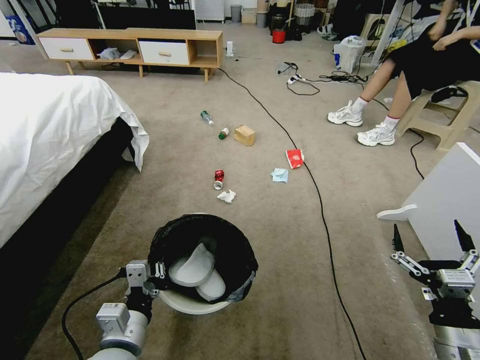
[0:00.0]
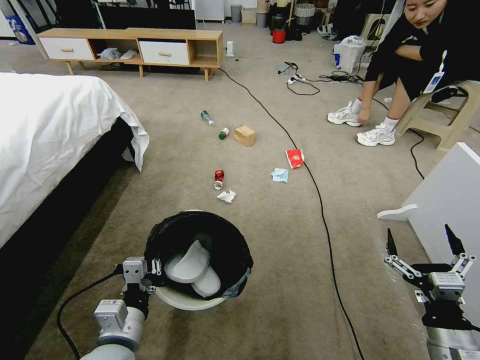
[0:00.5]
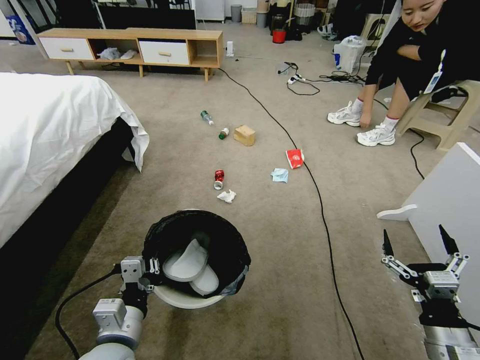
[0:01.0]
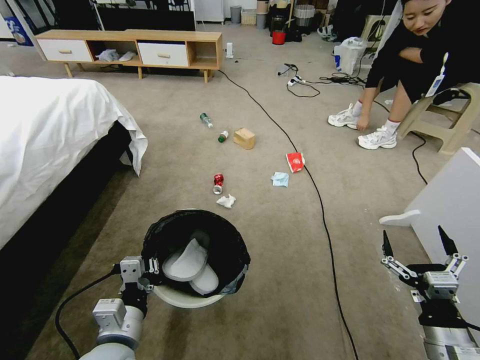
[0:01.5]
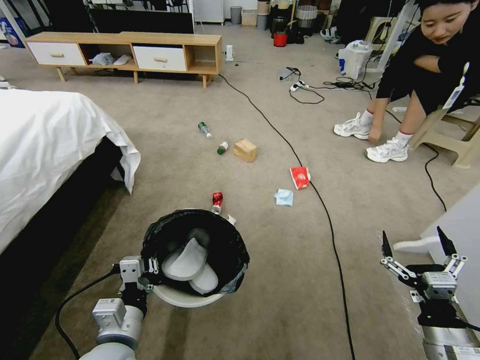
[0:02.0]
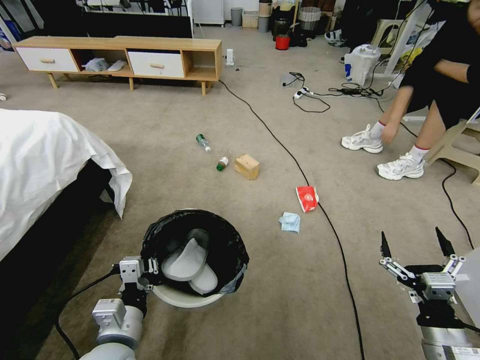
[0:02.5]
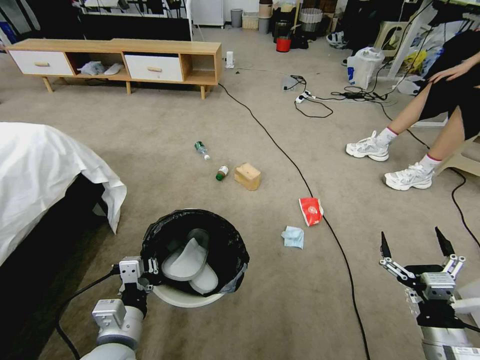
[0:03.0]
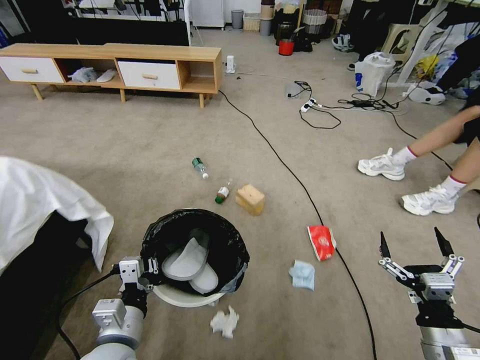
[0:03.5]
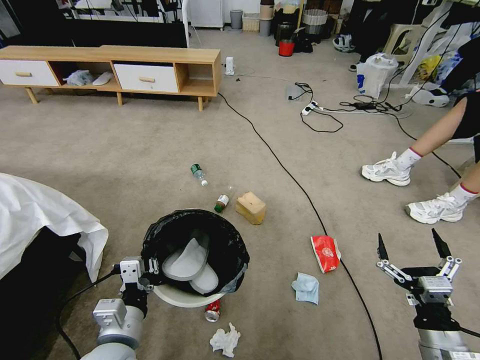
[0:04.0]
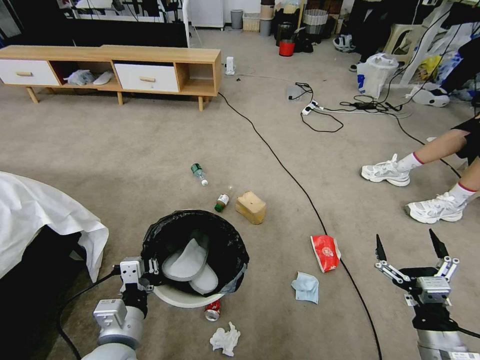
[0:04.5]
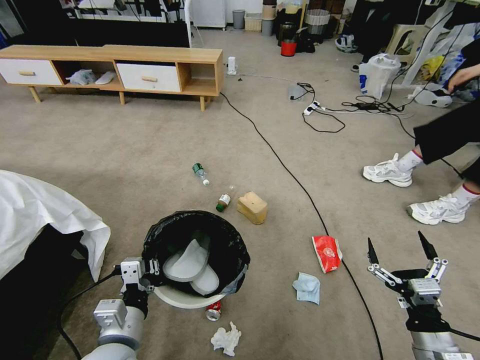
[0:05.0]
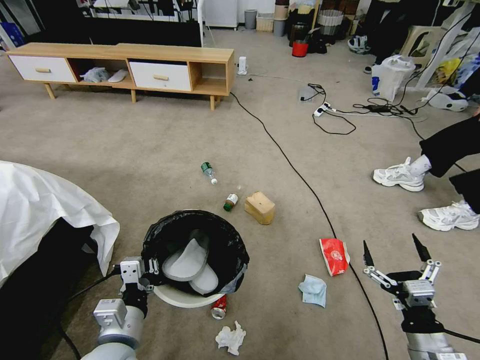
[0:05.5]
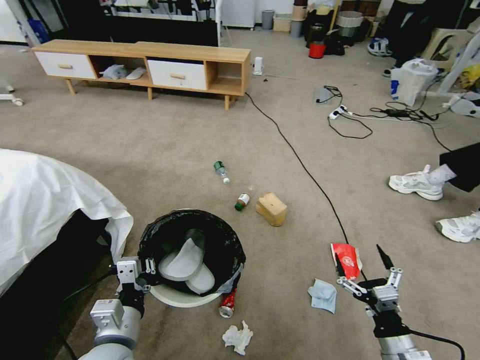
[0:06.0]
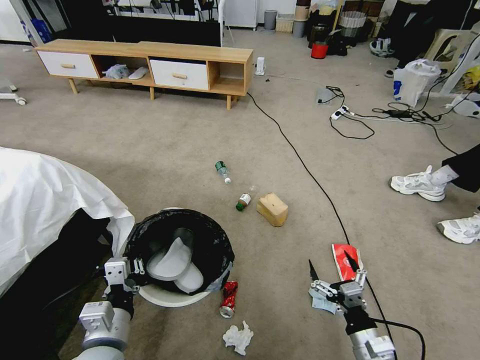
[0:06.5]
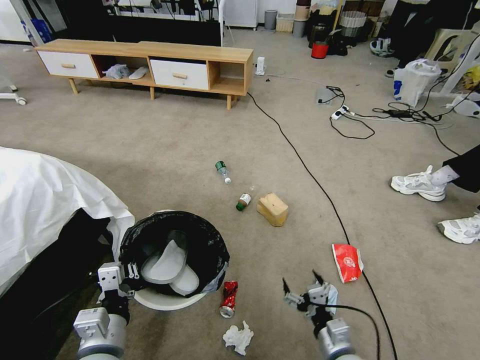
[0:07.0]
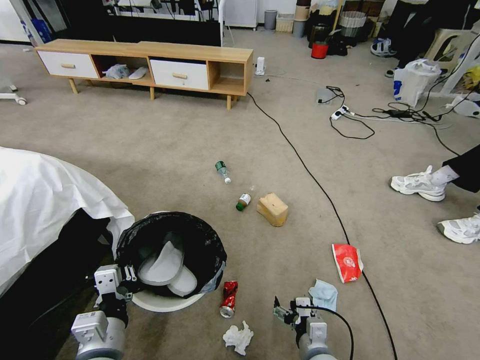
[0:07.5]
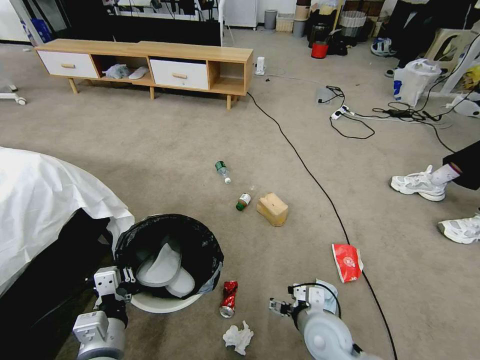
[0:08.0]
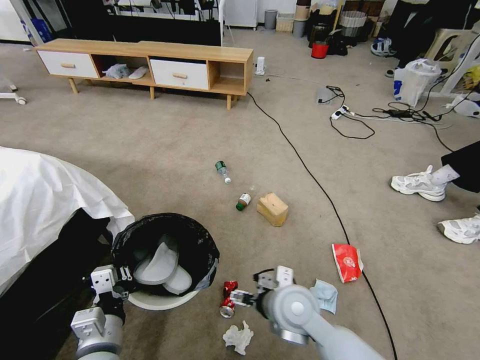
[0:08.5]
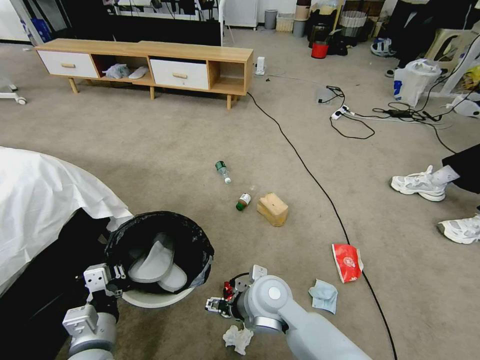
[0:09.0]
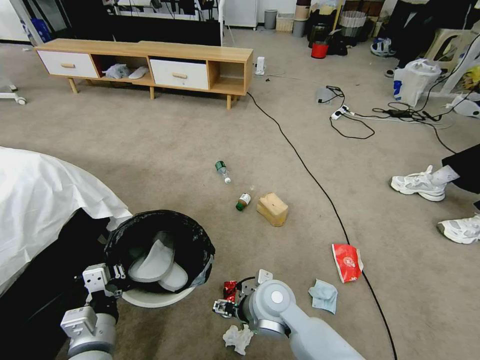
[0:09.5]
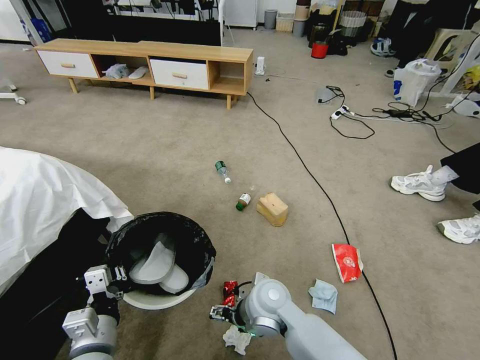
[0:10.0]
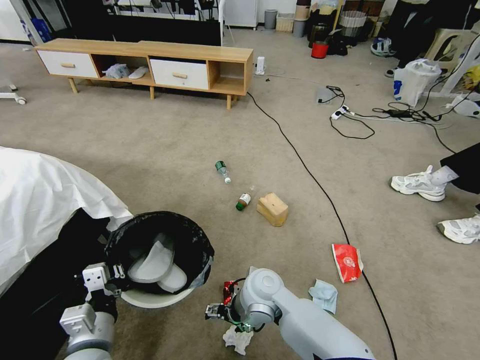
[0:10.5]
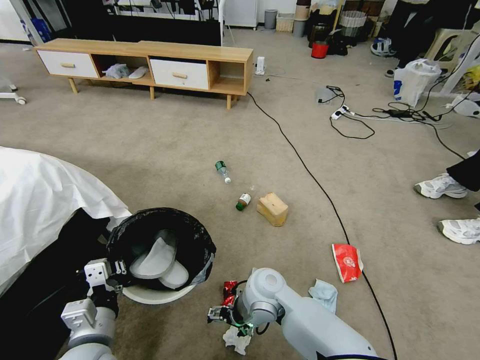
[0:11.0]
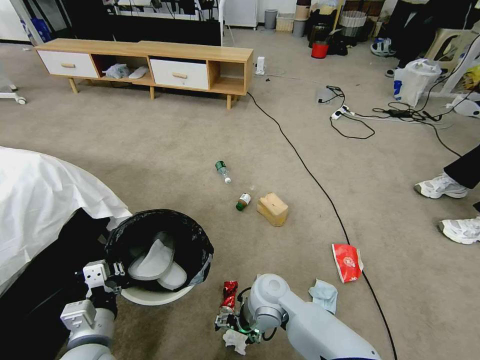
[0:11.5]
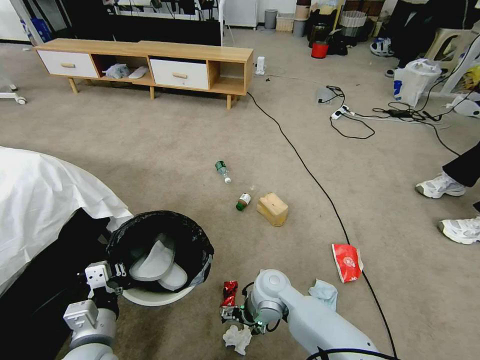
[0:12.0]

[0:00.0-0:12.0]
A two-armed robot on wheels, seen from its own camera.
Task of the whole recording: Pick up the trash bin and place the garbage on the floor into it.
4.0 to 6.0 s: The right gripper ends up roughly 5 cm from where it was.
6.0 to 8.0 s: The right gripper is displaced to the left and forward by approximately 20 cm.
8.0 to 10.0 s: The right gripper goes roughly 15 cm to the left and forward.
10.0 to 12.0 s: The right gripper shifts by some 5 cm.

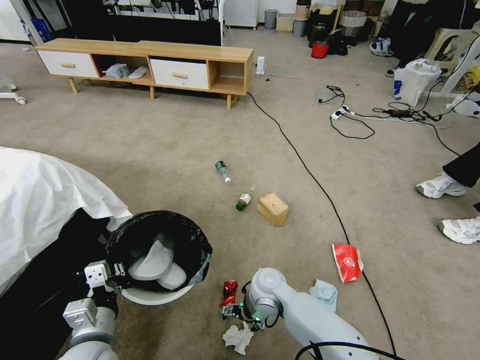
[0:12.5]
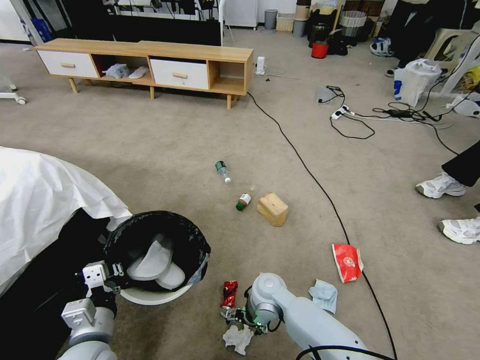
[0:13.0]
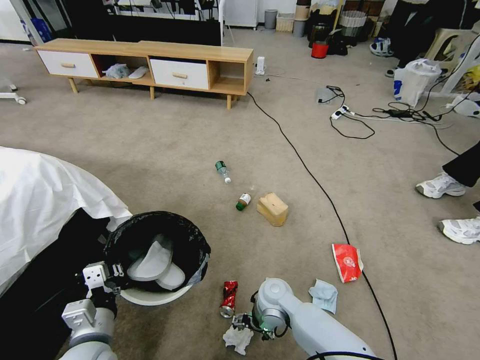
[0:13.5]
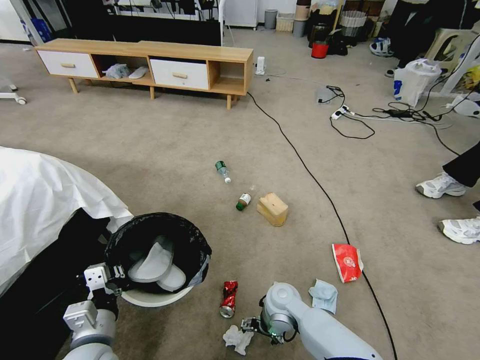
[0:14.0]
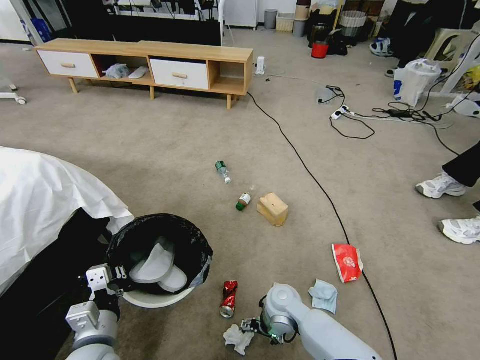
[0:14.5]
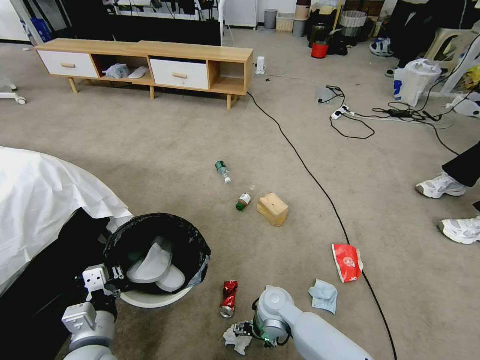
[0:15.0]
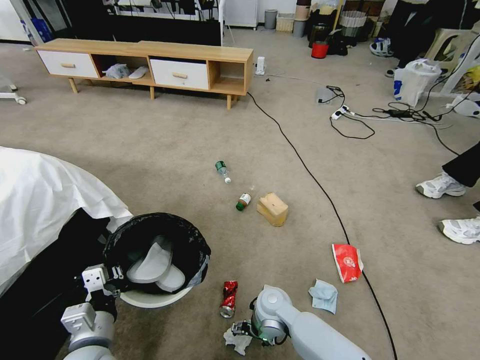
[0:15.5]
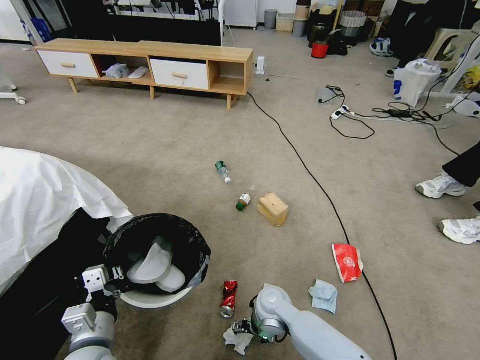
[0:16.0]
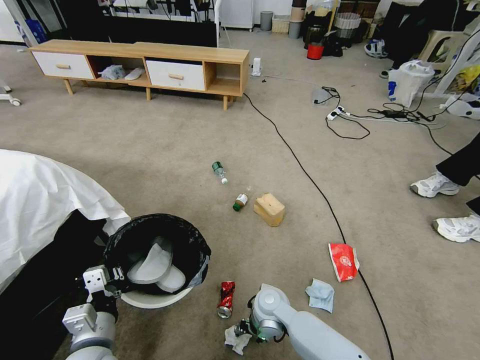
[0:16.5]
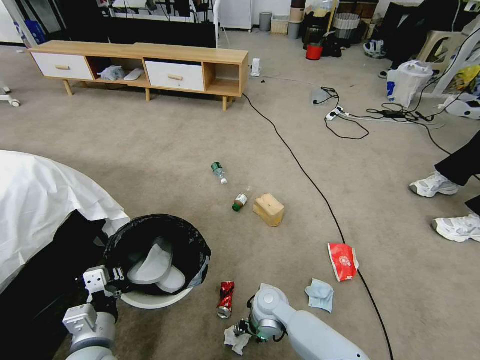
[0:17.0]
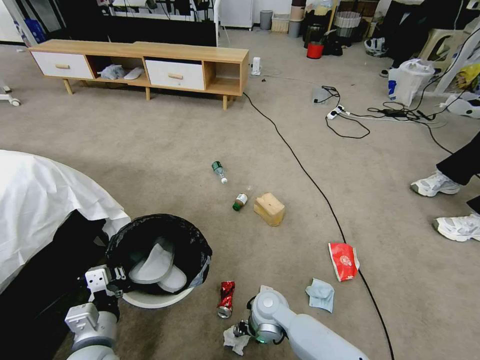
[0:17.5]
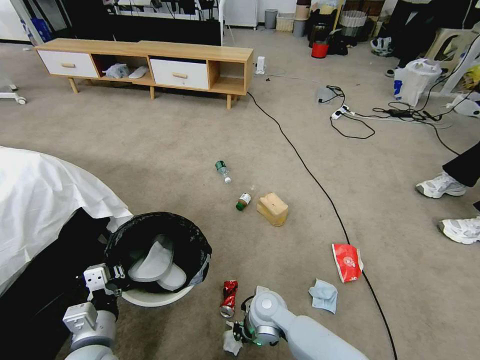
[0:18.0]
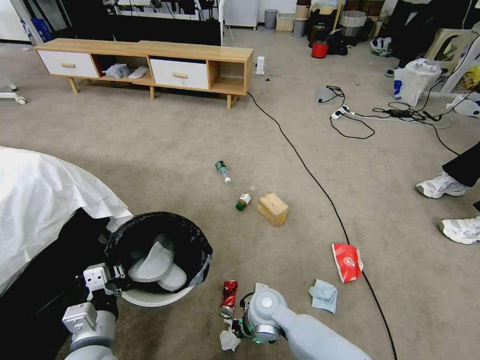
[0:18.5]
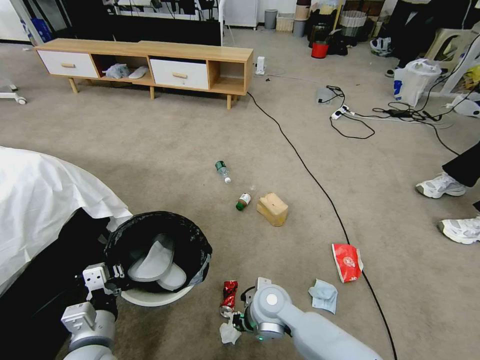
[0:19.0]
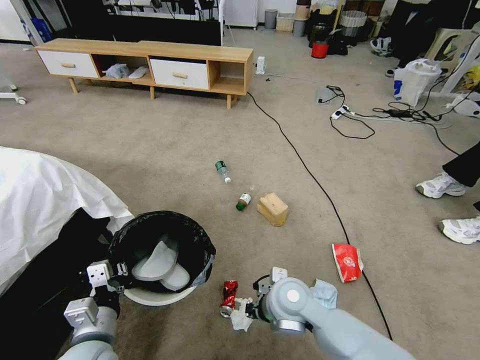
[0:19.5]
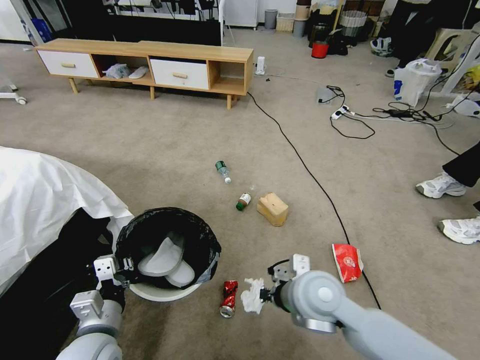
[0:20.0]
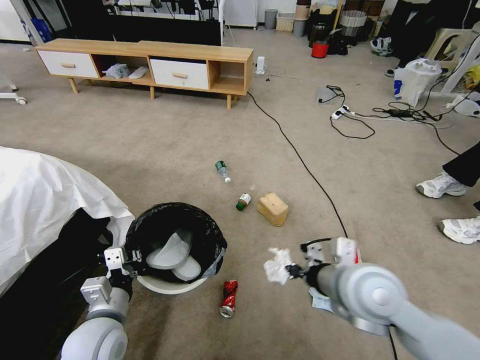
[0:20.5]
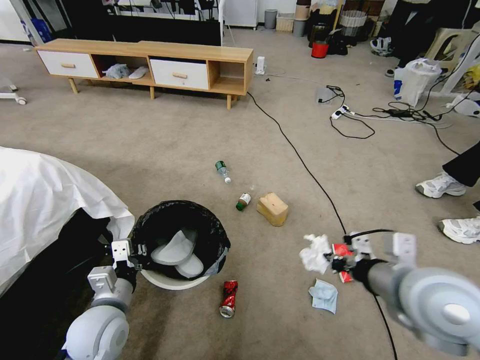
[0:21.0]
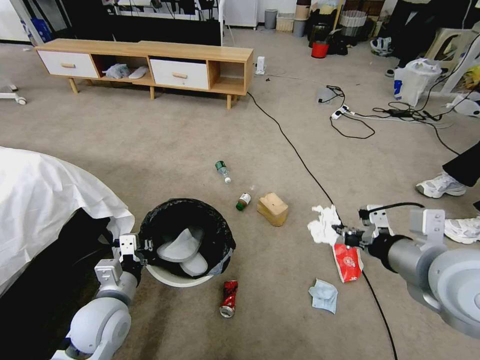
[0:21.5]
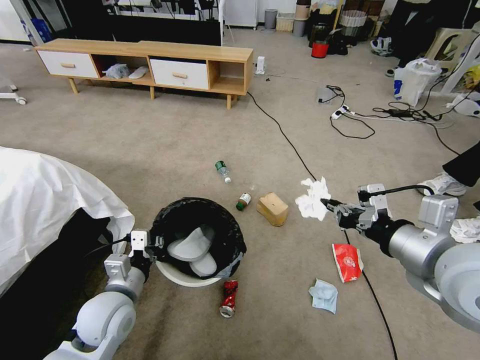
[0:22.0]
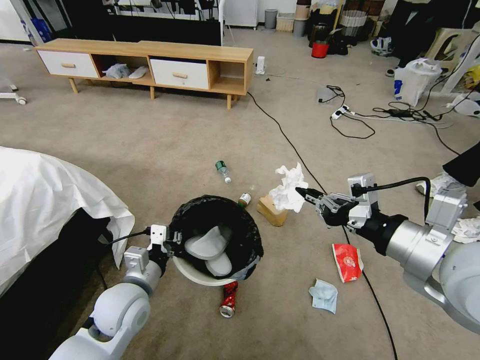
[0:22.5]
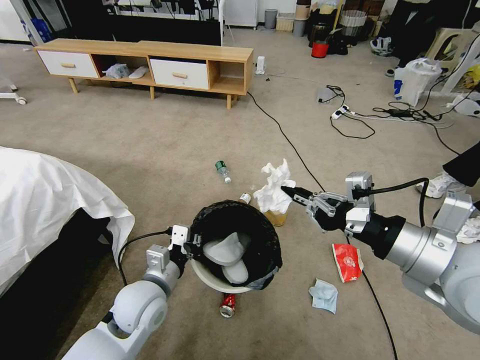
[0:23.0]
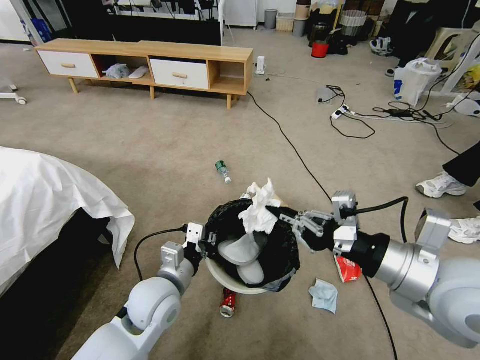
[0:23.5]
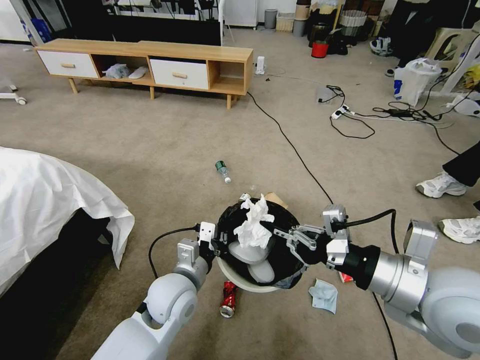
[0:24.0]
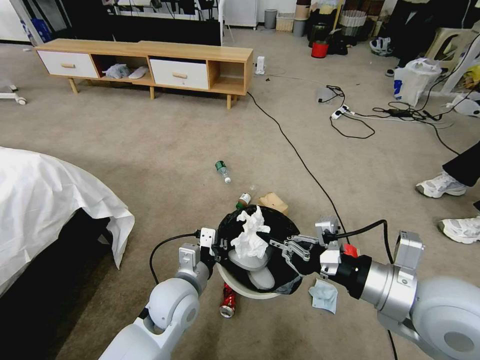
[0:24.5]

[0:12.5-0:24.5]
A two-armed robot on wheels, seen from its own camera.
Task of the whole recording: Pick up the trash bin and place the garbage on the floor into it.
12.5 to 14.5 s: The right gripper moves some 5 cm.
14.5 to 16.5 s: The grippers stay close to where they were, moving slightly.
16.5 to 18.5 s: The right gripper closes its fingers.
18.5 to 20.5 s: The right gripper shifts some 25 cm upward and to the right.
20.5 to 22.5 s: The left gripper moves forward, some 5 cm, while the right gripper moves upward and to the right, roughly 15 cm.
22.5 to 24.5 s: The left gripper moves to the right, roughly 10 cm. Meanwhile the right gripper shifts roughly 5 cm downward.

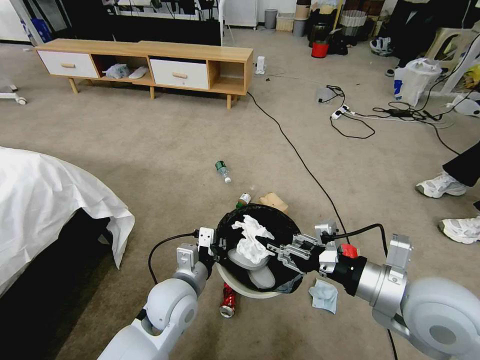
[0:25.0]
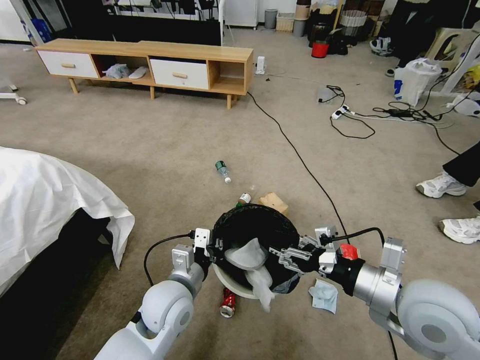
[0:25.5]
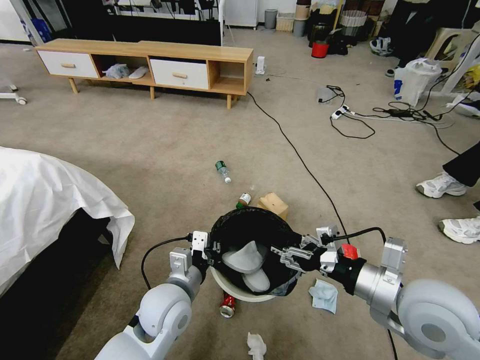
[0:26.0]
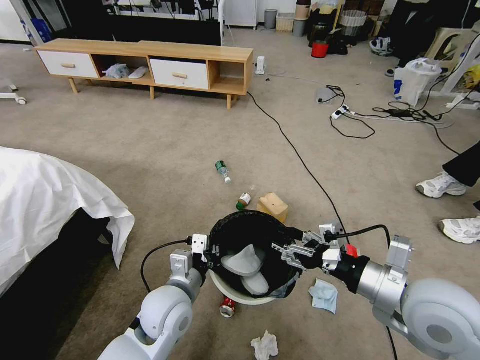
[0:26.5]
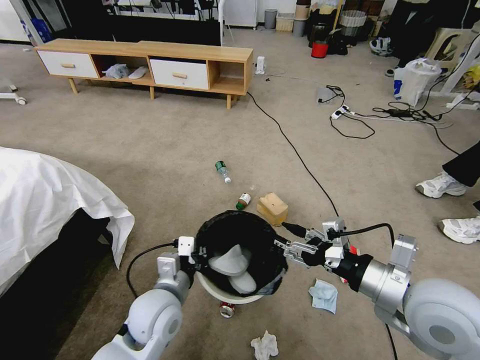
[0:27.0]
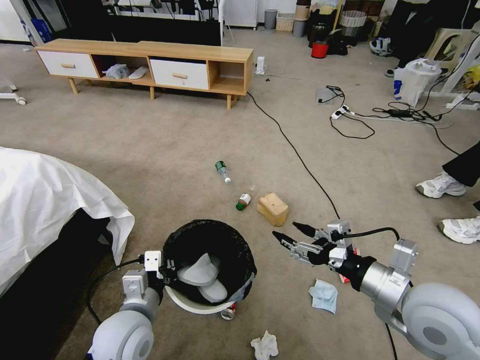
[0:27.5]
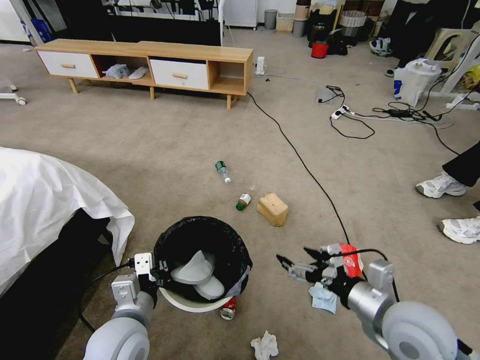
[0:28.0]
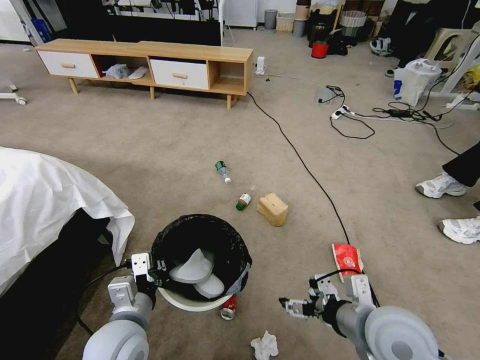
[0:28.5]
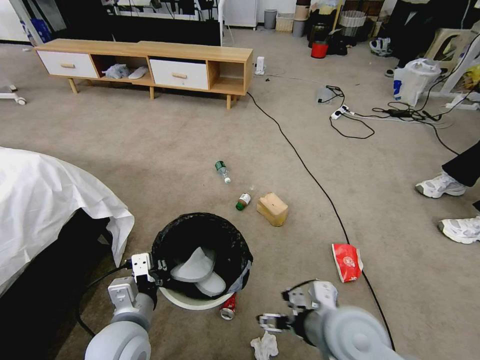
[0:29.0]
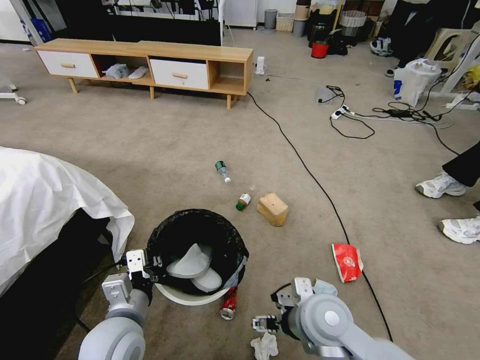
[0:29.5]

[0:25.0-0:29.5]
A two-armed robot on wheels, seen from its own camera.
Task of the whole recording: Pick up the trash bin and place the garbage on the floor into it.
25.0 to 27.0 s: The grippers move only a little.
27.0 to 29.5 s: The right gripper is displaced to the left and downward by about 20 cm, while the left gripper is displaced backward and to the left by about 10 cm.
